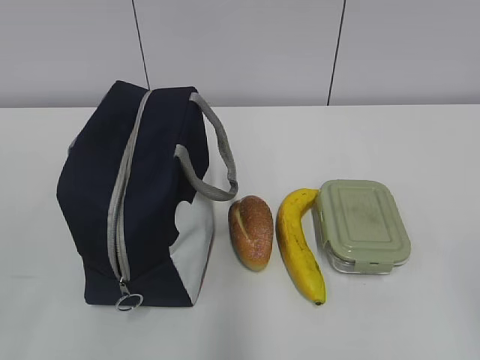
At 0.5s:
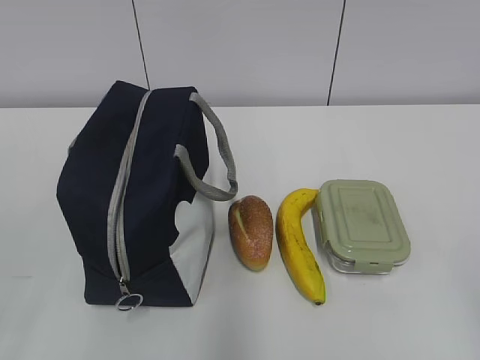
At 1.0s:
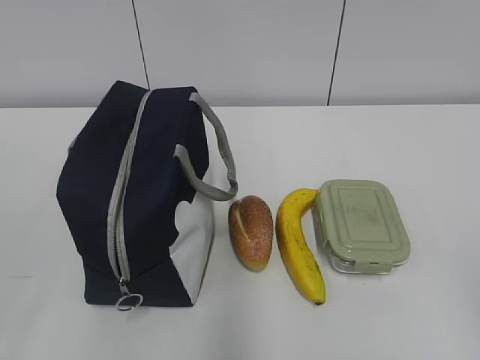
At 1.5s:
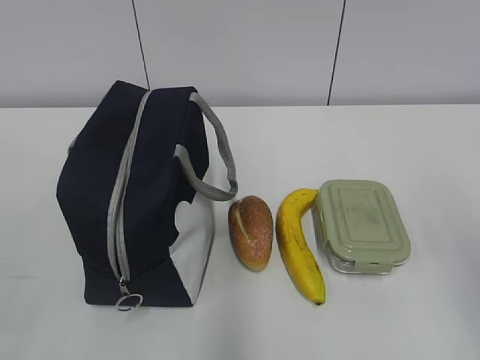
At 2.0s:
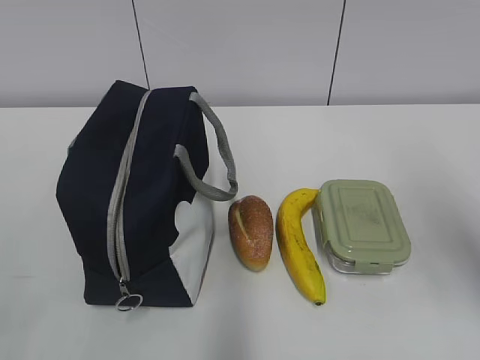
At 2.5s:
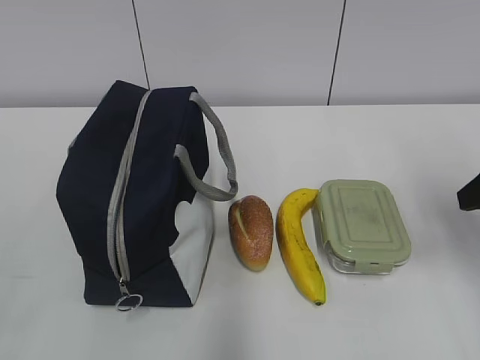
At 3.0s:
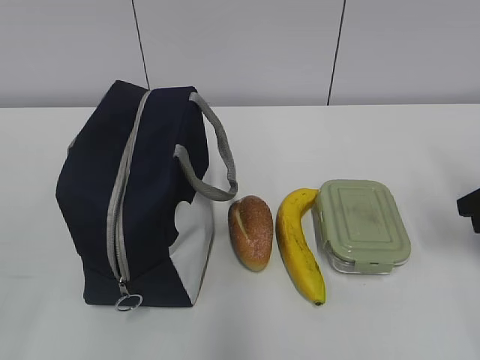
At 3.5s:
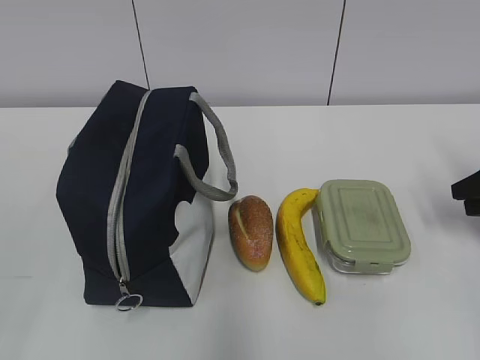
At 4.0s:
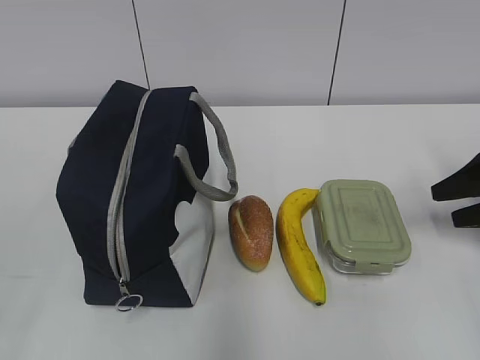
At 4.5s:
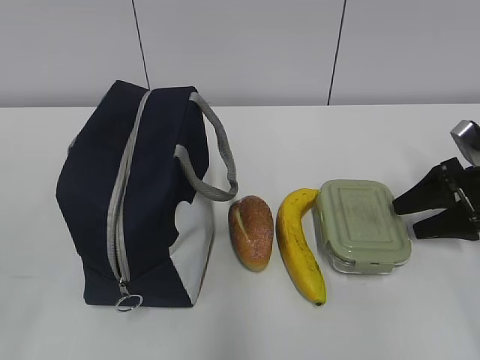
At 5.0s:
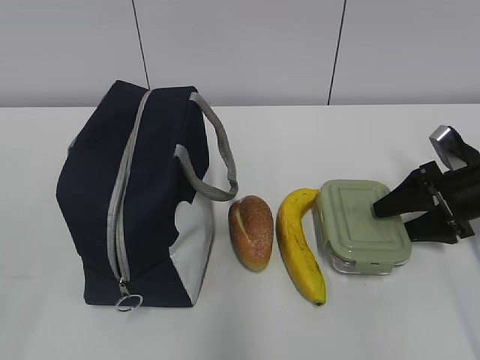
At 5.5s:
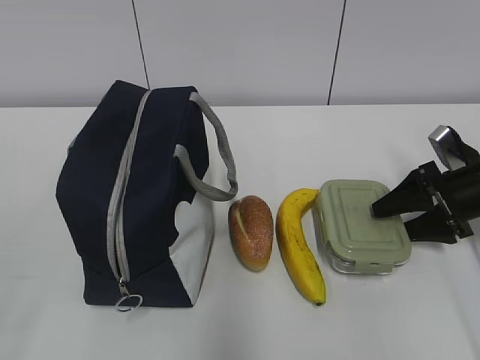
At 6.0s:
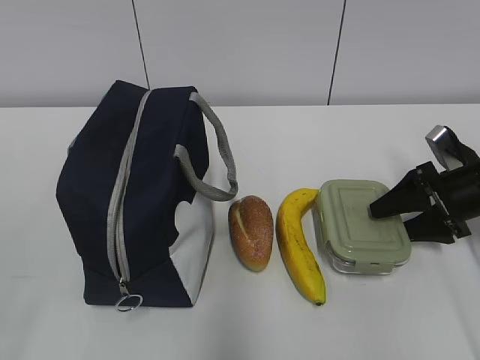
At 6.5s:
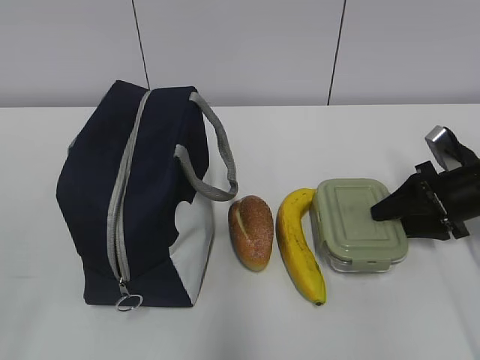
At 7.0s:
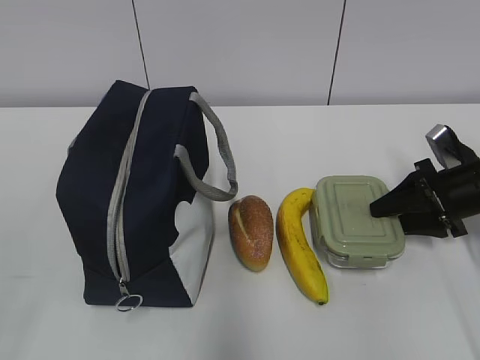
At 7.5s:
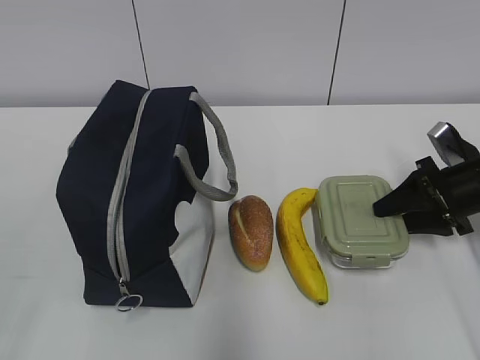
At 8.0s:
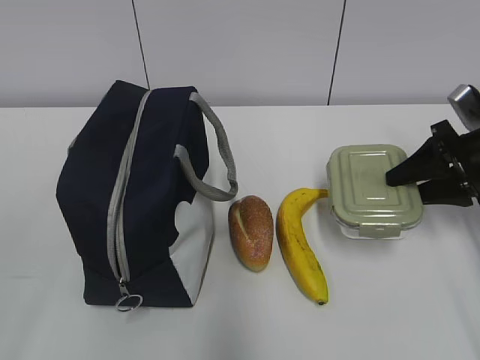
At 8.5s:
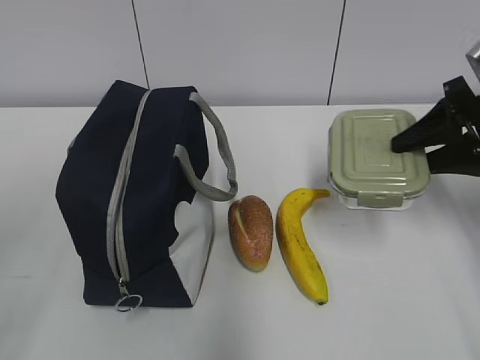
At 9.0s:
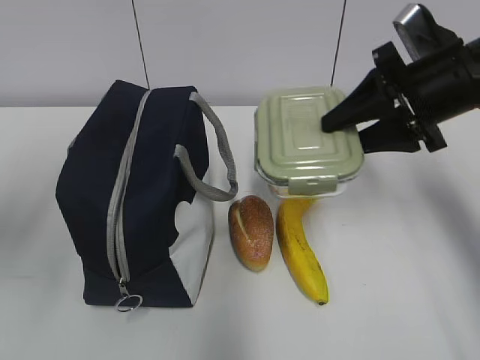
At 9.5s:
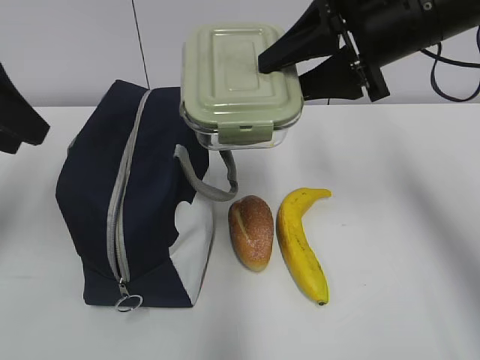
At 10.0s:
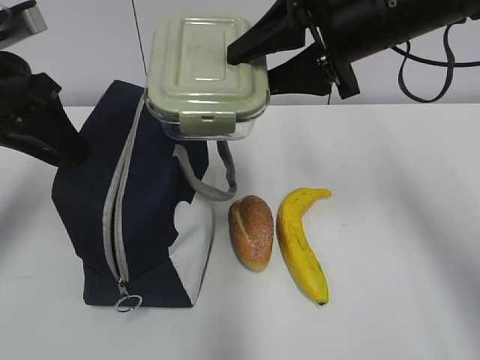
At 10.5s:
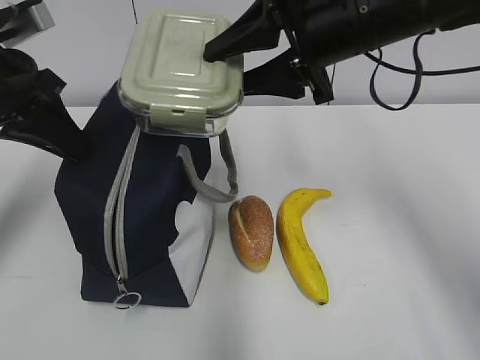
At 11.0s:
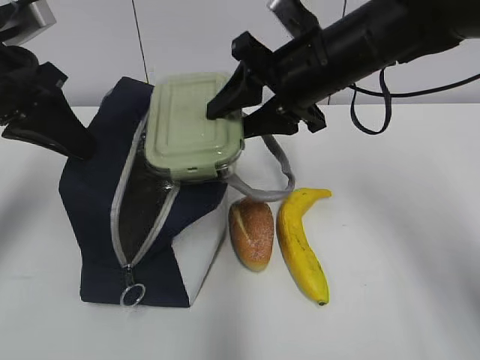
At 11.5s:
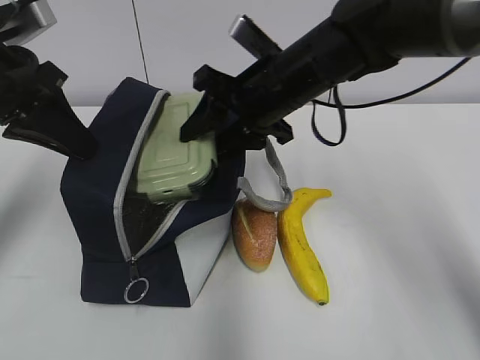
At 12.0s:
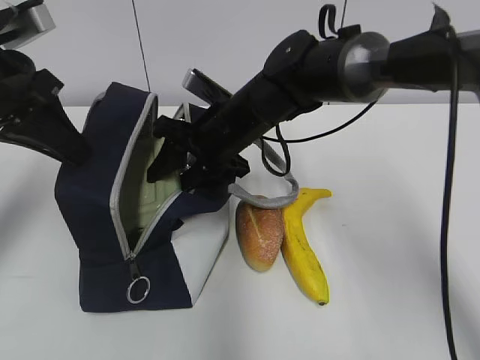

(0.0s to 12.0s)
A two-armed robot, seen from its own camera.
2.0s - 4.0s: The right gripper travels downward, forward and to the right by about 20 cm.
4.0s - 6.0s: The right gripper heads to the left, covering roughly 5 cm.
6.0s - 8.0s: The right gripper travels upward by roughly 5 cm.
8.0s - 10.0s: The right gripper is displaced to the left and upward by roughly 25 cm; the left gripper shifts some 30 cm forward.
10.0s - 12.0s: The right gripper heads downward, to the left and forward, covering about 20 cm, while the left gripper closes.

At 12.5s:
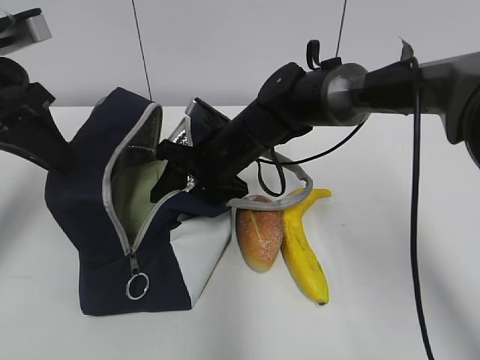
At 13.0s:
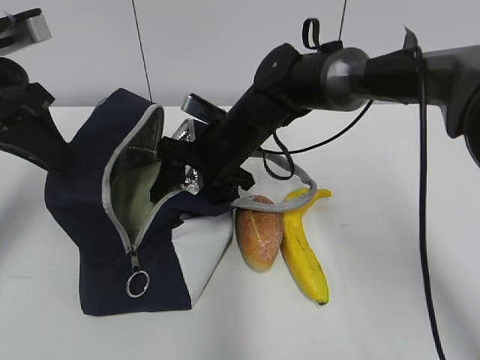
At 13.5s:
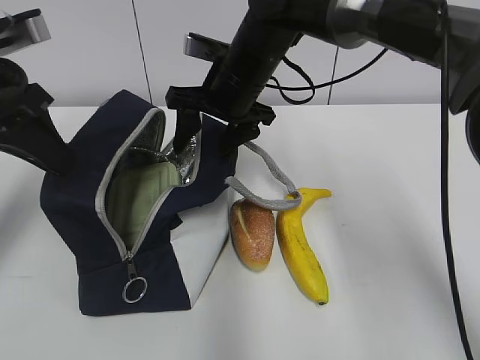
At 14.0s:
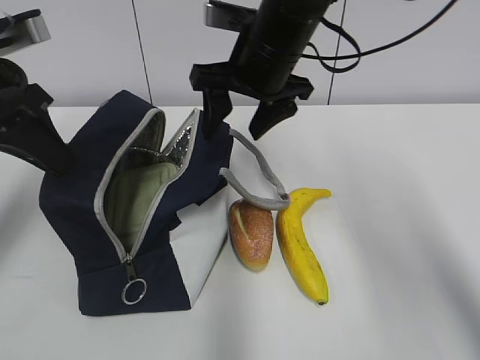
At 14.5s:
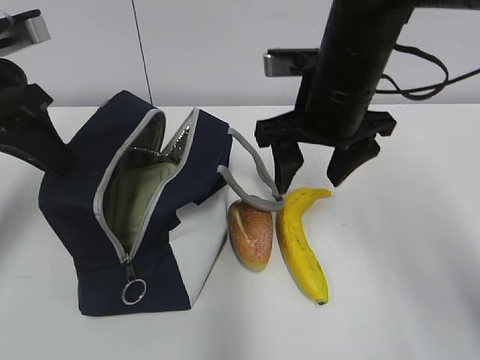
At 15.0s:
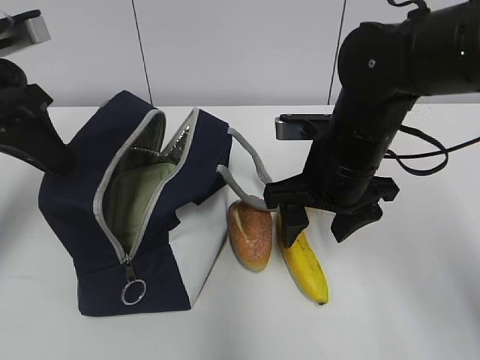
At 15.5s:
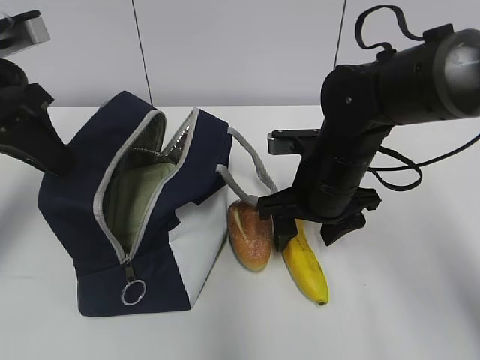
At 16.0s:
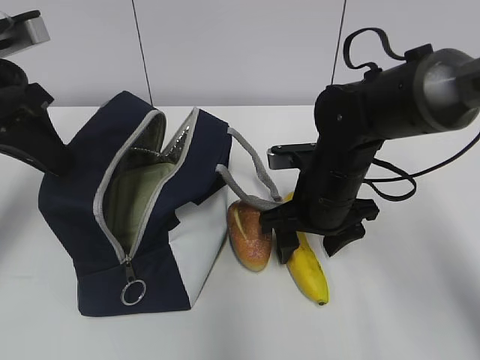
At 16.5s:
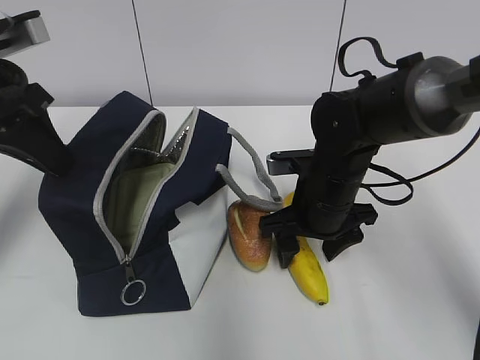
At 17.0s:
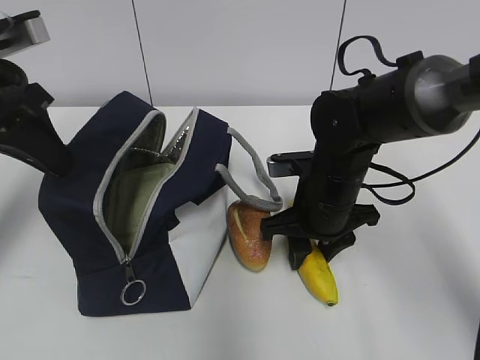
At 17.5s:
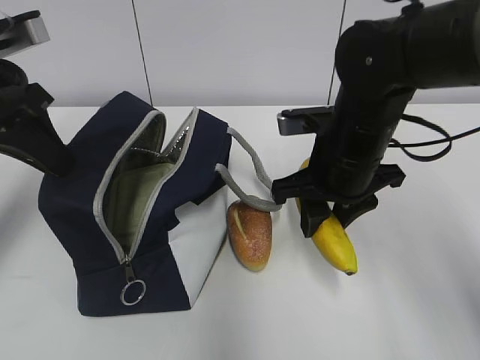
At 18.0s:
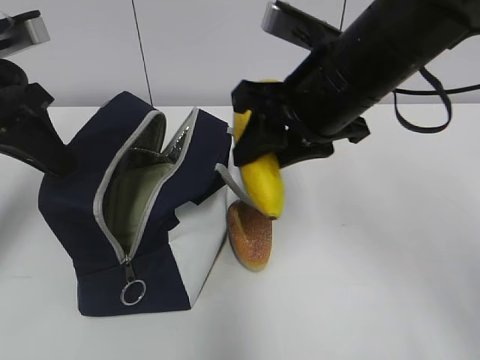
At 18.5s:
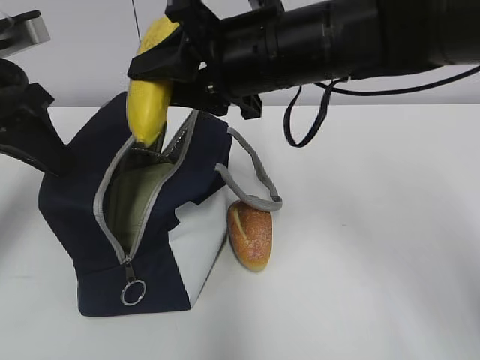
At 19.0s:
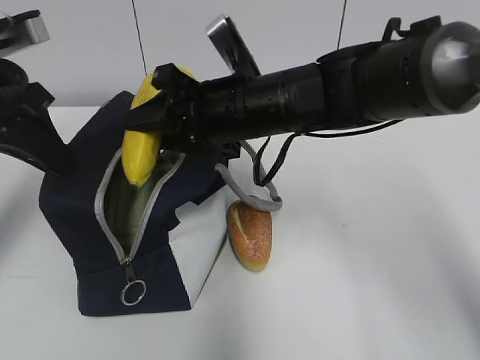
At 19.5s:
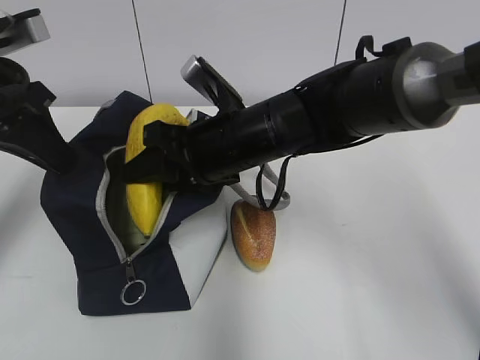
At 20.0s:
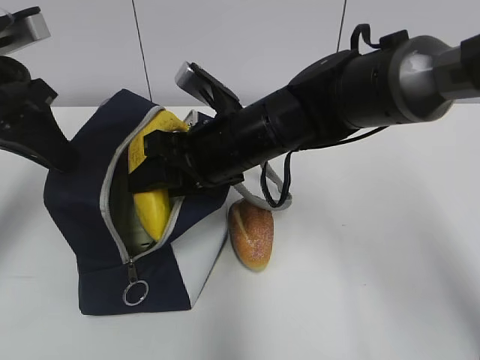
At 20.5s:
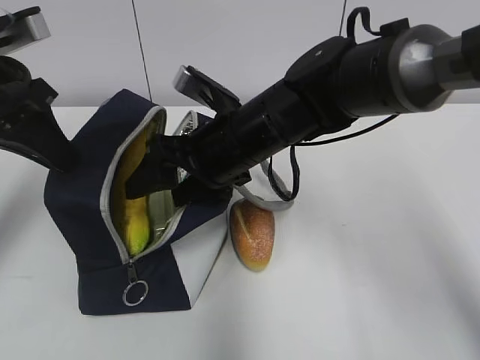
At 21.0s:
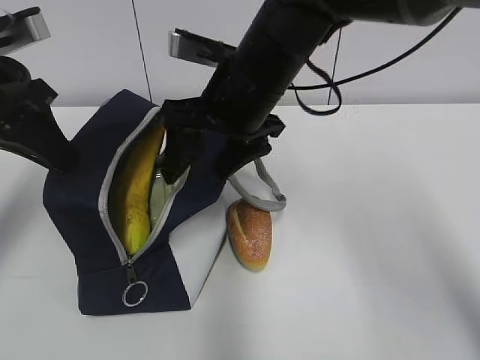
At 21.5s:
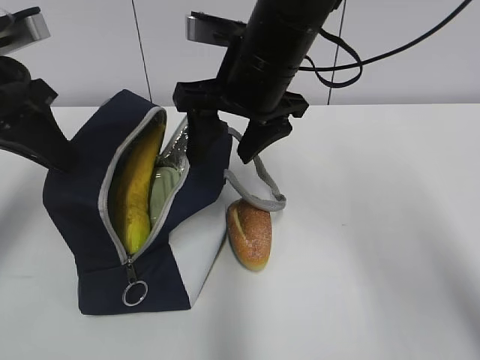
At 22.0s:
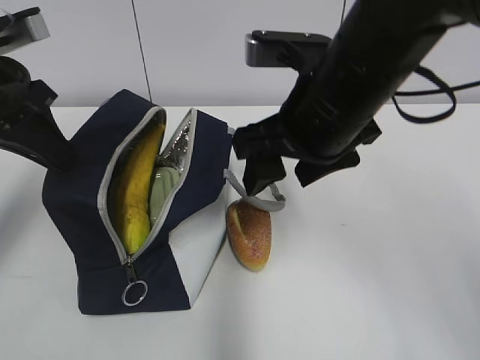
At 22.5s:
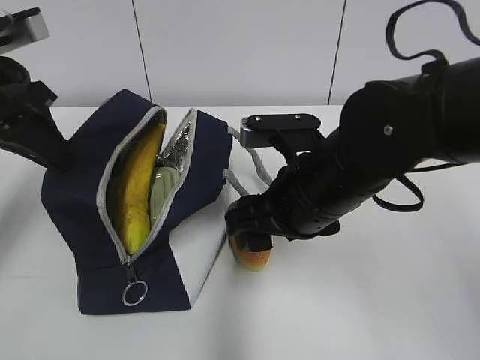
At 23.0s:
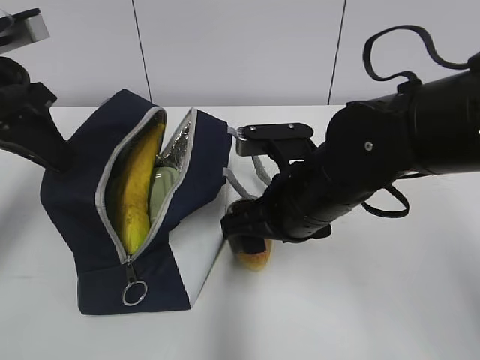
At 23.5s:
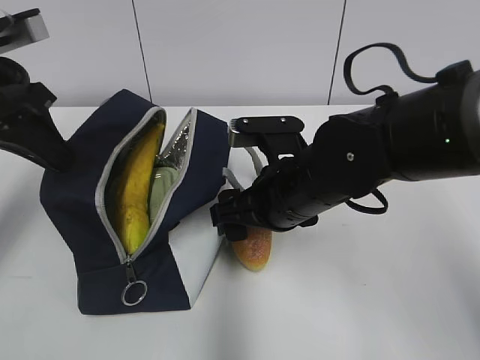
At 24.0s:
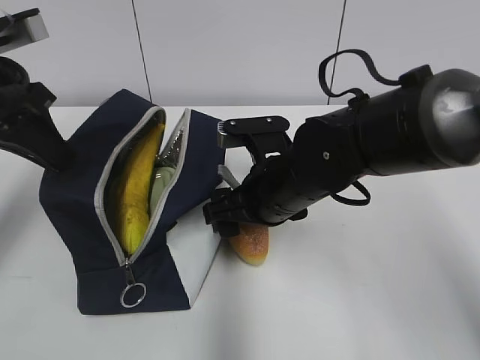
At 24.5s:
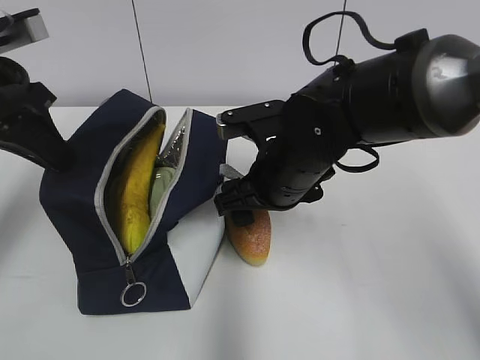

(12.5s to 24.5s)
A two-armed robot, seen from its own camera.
12.5s - 14.5s: The right gripper moves upward, to the right and backward, about 15 cm.
14.5s - 16.5s: The right gripper shifts roughly 15 cm downward.
16.5s - 18.5s: The right gripper shifts about 15 cm upward, and closes its fingers.
18.5s - 20.5s: The right gripper shifts approximately 10 cm downward, and opens up.
20.5s - 22.5s: The right gripper heads backward and to the right, covering some 10 cm, and travels upward and back again, roughly 10 cm each way.
22.5s - 24.5s: The right gripper shifts approximately 5 cm forward.

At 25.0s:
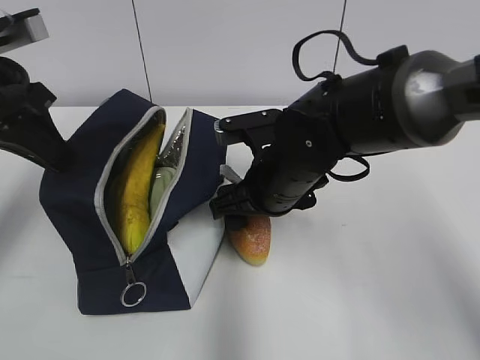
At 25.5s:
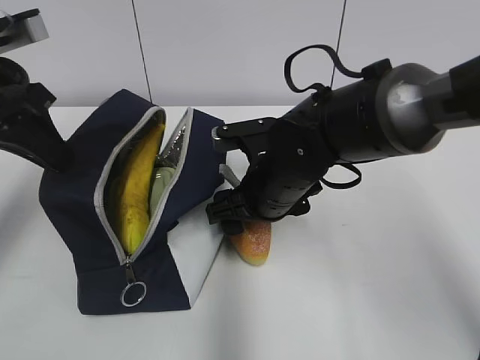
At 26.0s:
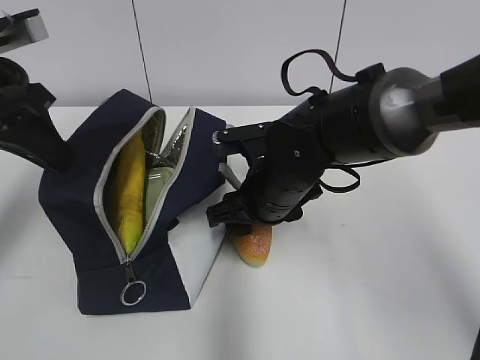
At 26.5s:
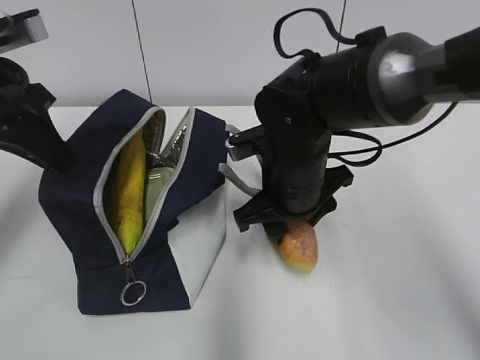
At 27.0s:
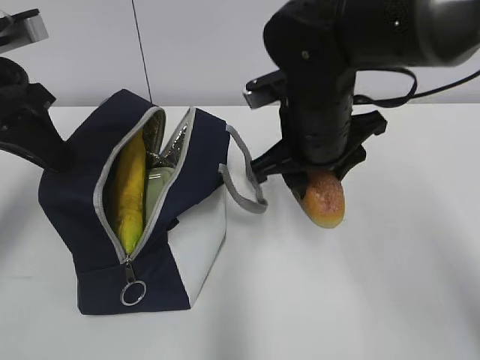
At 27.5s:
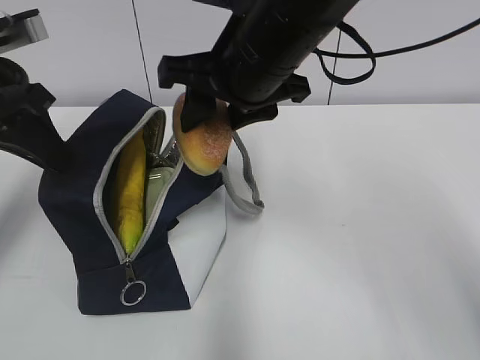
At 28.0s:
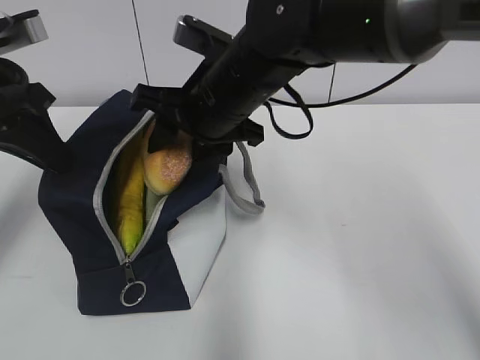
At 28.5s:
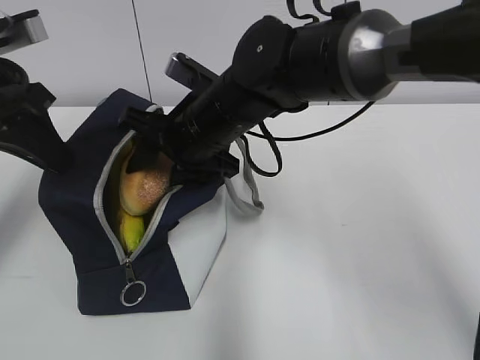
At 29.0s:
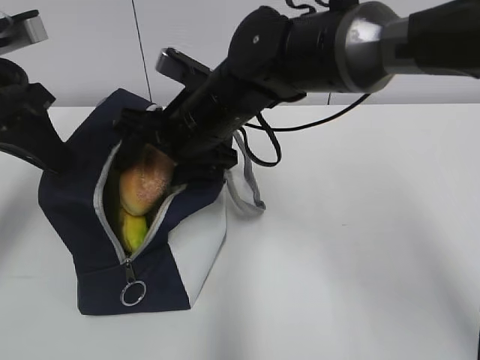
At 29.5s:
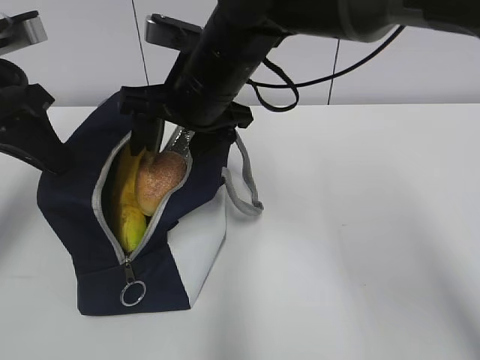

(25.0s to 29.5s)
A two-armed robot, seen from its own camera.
25.0s - 27.0s: The right gripper shifts approximately 10 cm upward, and closes its fingers.
27.0s - 29.5s: The right gripper travels to the left by about 10 cm, and opens.
